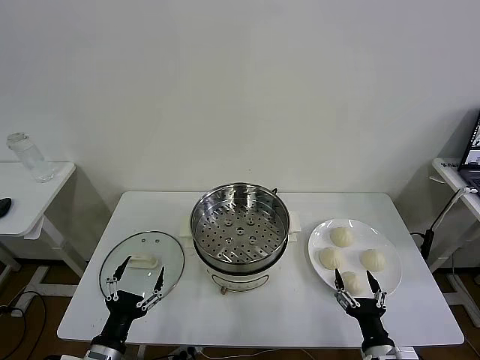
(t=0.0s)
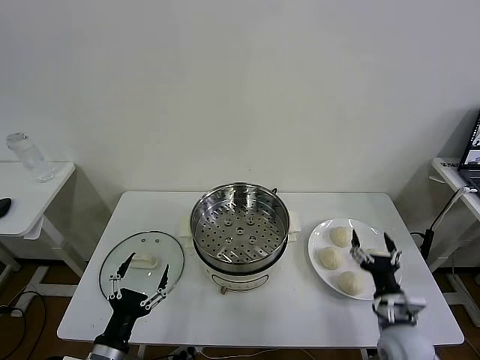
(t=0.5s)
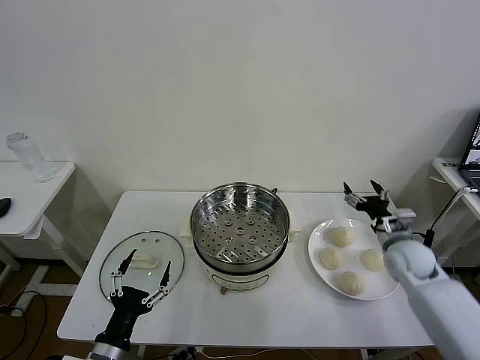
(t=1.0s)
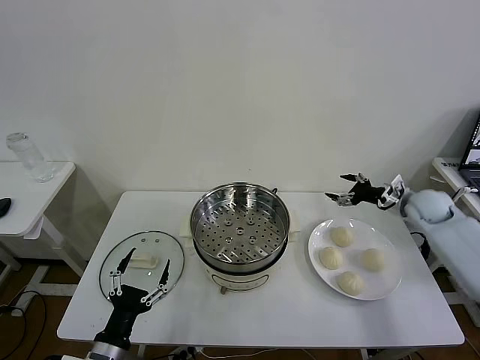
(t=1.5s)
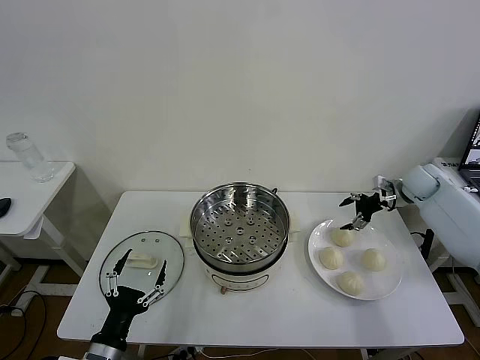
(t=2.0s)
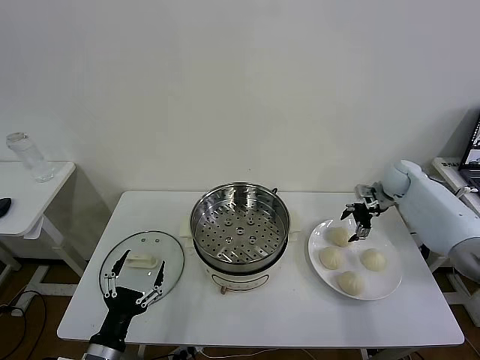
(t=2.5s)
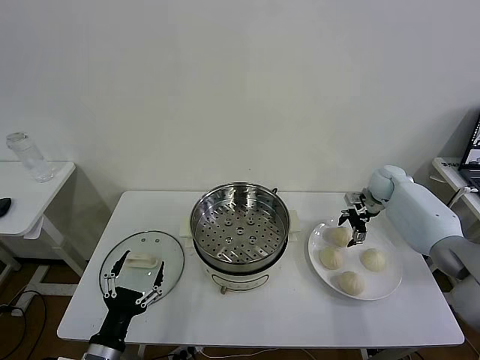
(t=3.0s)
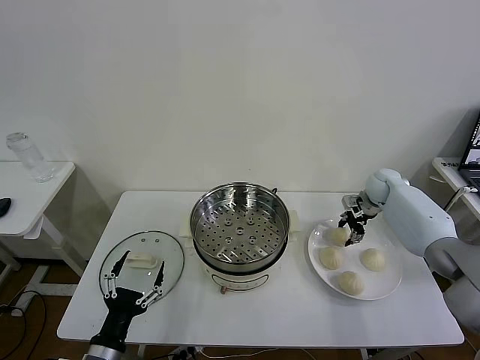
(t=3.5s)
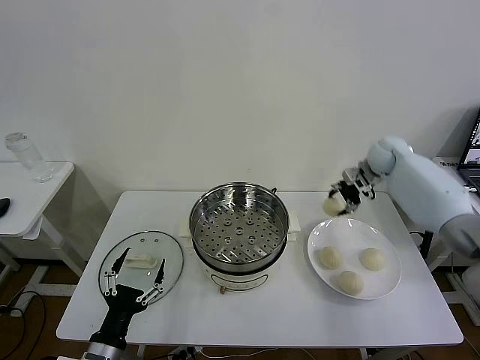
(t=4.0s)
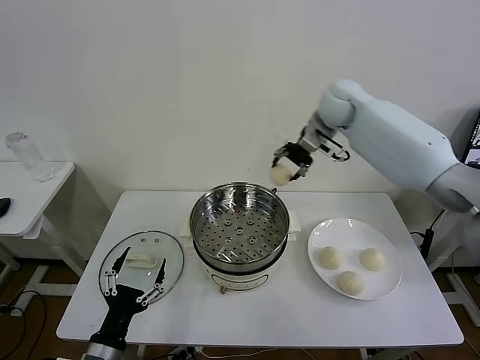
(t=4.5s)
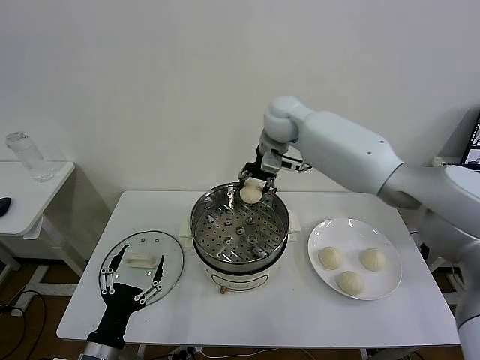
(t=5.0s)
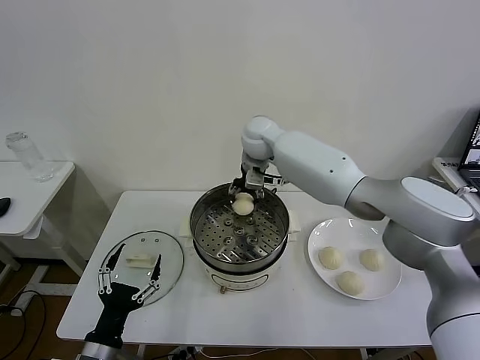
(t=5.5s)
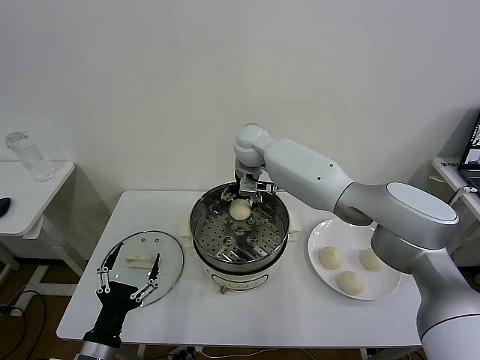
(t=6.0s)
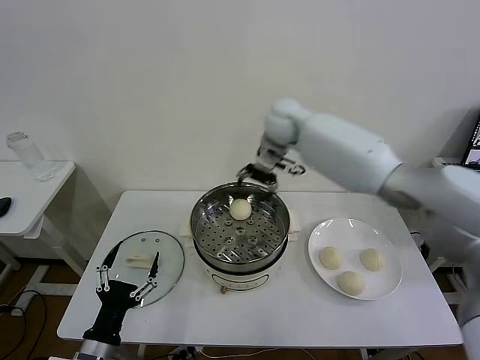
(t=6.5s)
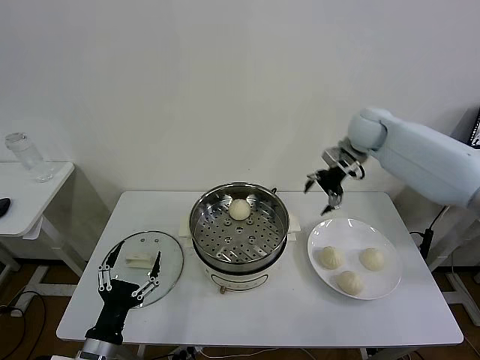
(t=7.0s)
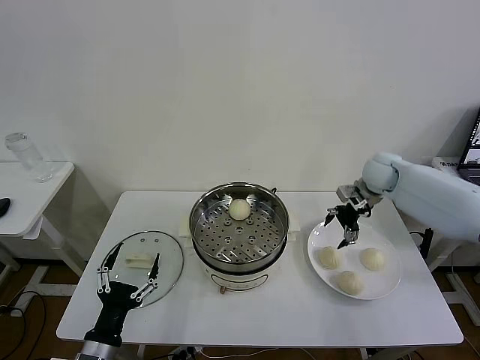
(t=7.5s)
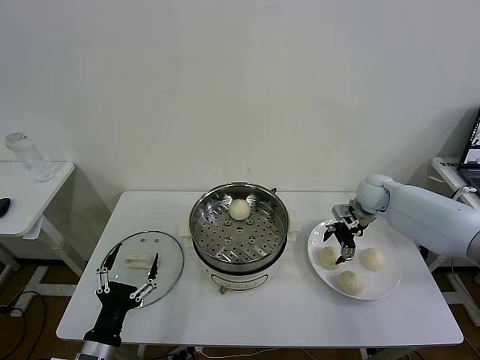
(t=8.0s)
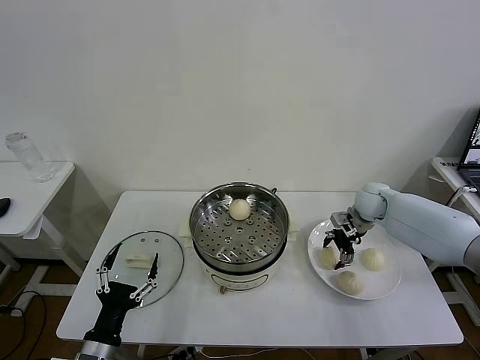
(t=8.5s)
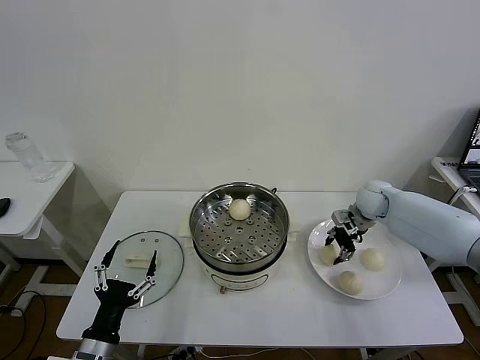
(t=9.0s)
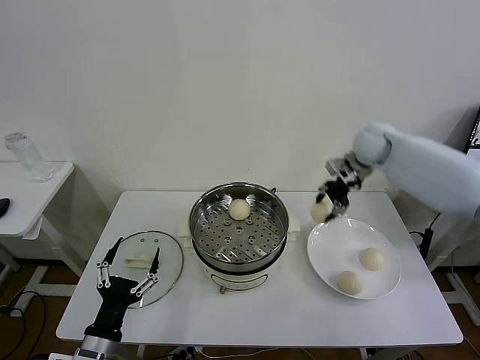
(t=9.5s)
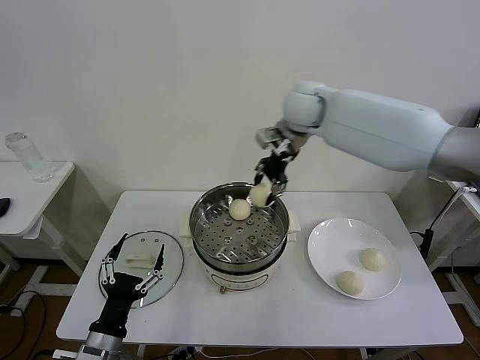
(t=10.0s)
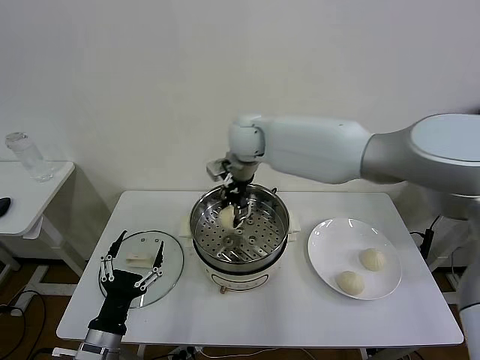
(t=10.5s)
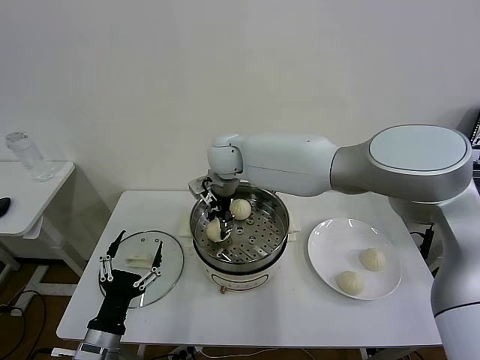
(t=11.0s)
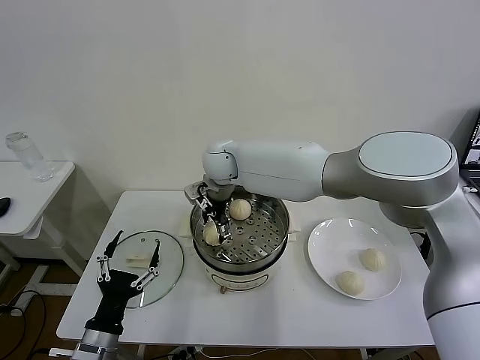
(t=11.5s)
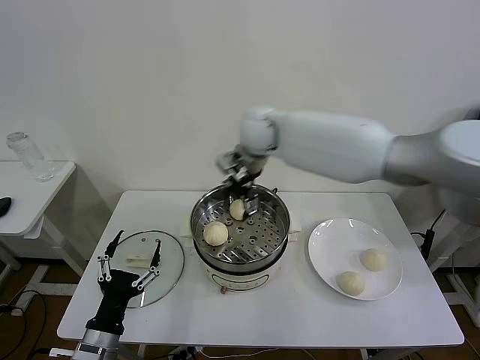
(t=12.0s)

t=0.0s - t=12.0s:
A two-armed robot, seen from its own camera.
Task of the whole recording: take steamed baozi put them in steamer then cover it.
Step, t=0.0s - t=3.5s: Grasp the baozi in the plate with right gripper.
Step, t=4.0s - t=6.0s: Place the baozi on the steamer with right gripper.
Step, t=6.5s - t=8.5s: Grasp the baozi in the plate with right gripper.
Step, t=9.0s - t=11.5s: Place the baozi on the steamer with right gripper.
t=2.0s - t=4.0s: The right gripper goes approximately 15 cm to the left, upward and forward, and closes up.
t=4.0s - t=6.0s: The right gripper travels to the left by about 35 cm, and opens its fingers.
t=6.0s - t=8.0s: The right gripper travels to the right by approximately 30 cm.
t=8.0s - t=10.0s: The right gripper moves to the left and upward, some 35 cm, and closes its fingers.
t=10.0s - t=12.0s: The right gripper moves roughly 15 cm to the left and comes back, and opens.

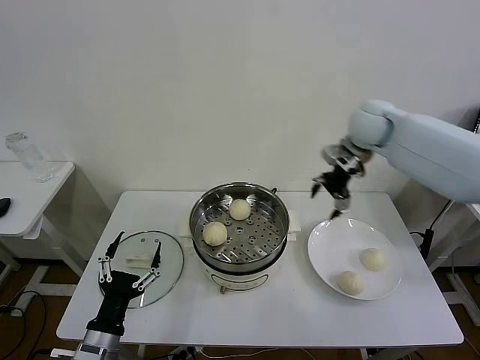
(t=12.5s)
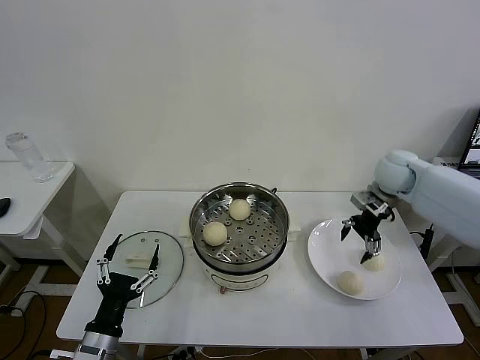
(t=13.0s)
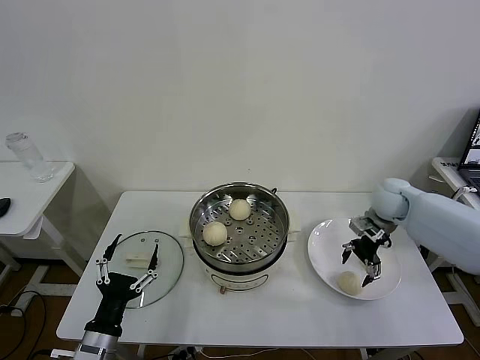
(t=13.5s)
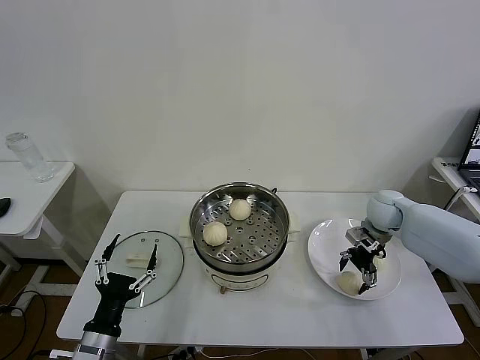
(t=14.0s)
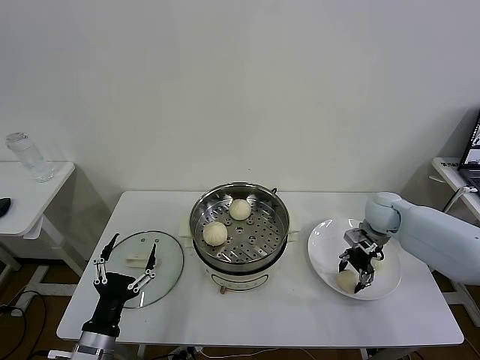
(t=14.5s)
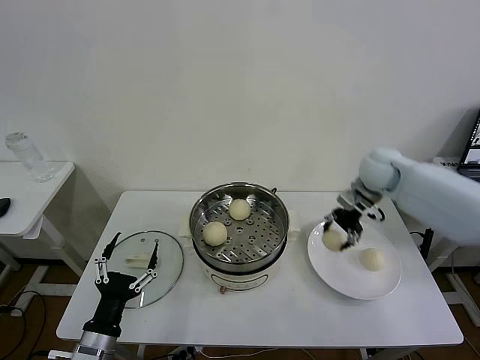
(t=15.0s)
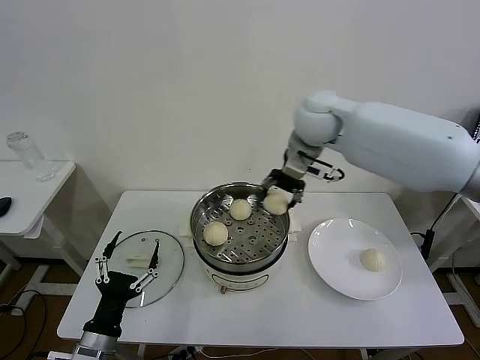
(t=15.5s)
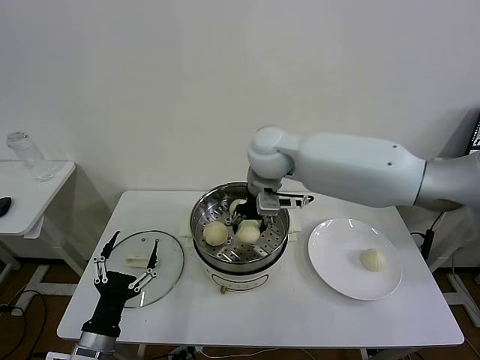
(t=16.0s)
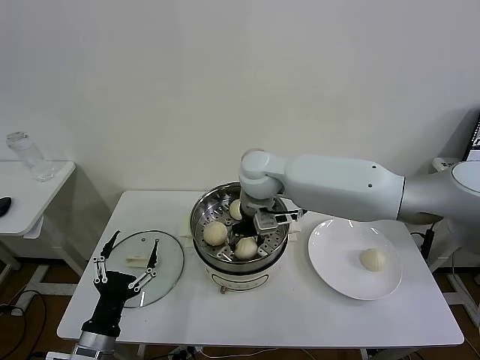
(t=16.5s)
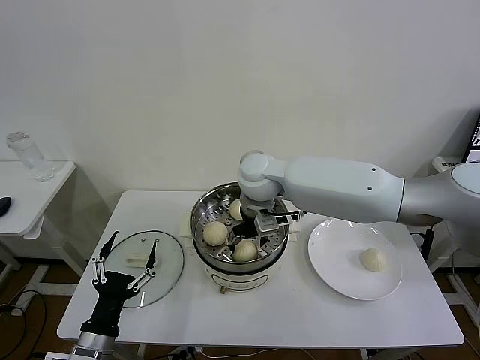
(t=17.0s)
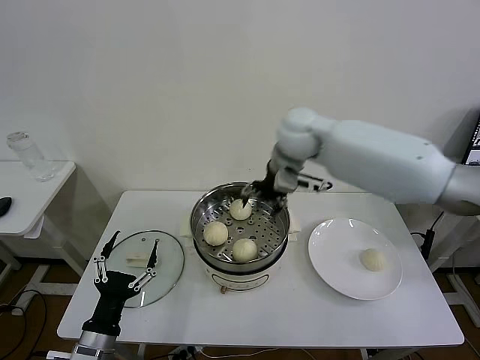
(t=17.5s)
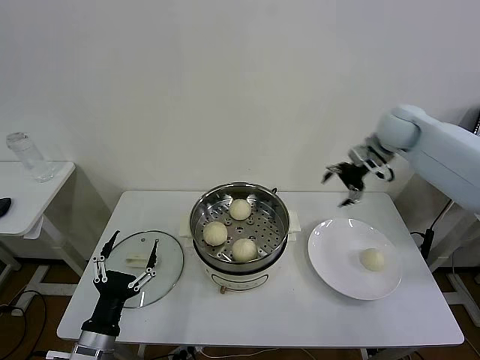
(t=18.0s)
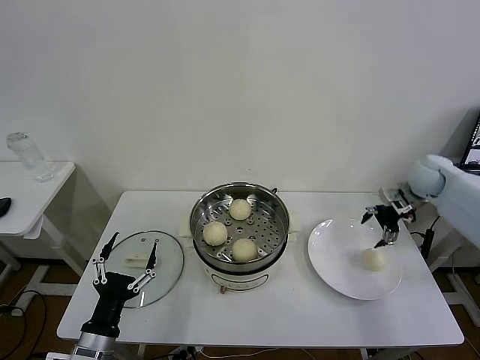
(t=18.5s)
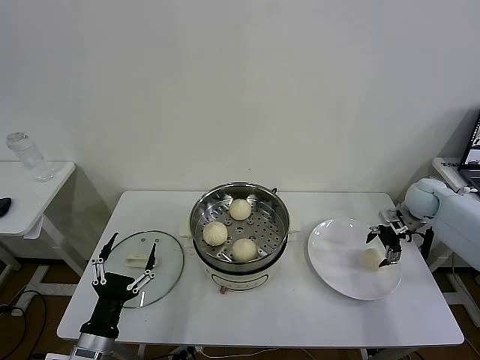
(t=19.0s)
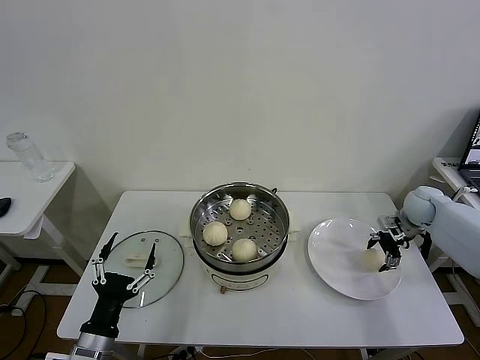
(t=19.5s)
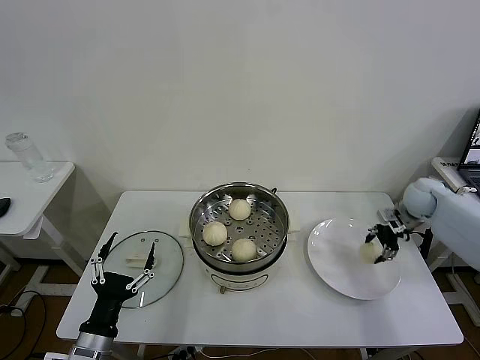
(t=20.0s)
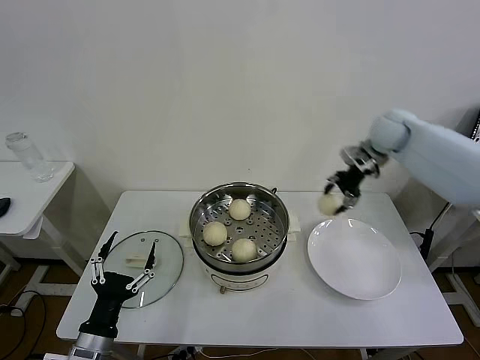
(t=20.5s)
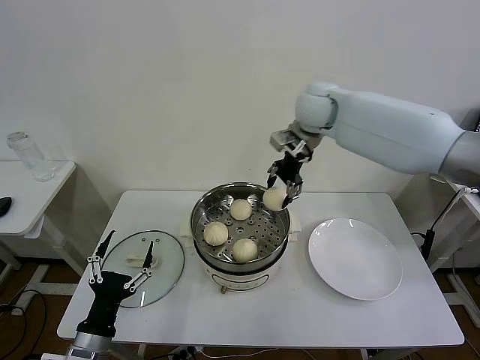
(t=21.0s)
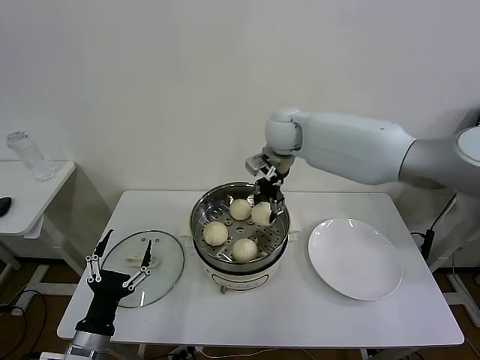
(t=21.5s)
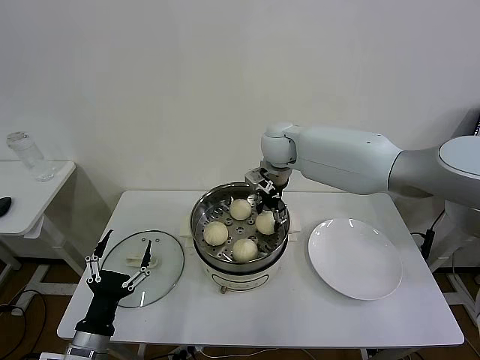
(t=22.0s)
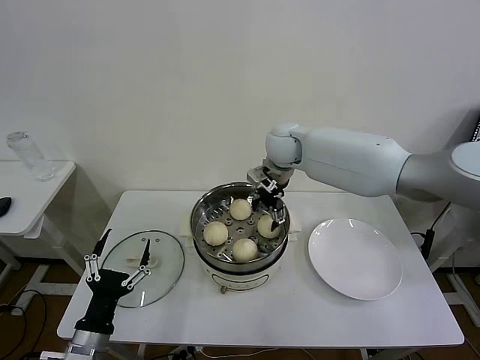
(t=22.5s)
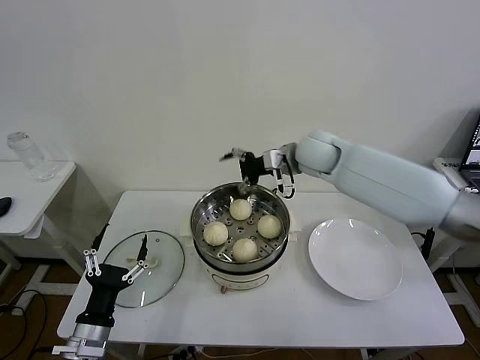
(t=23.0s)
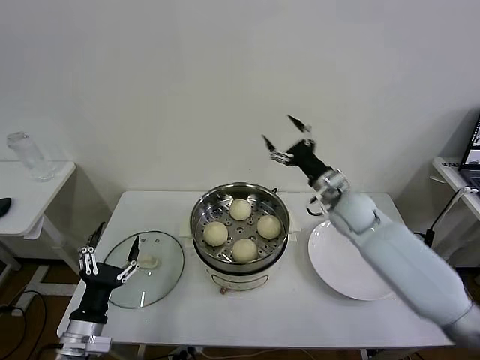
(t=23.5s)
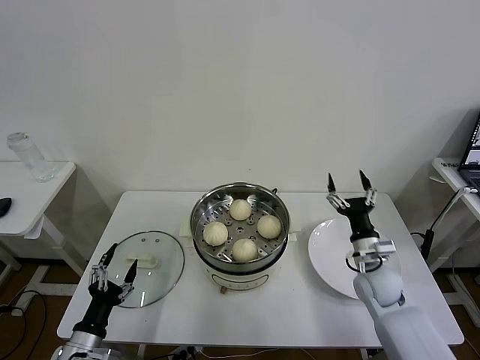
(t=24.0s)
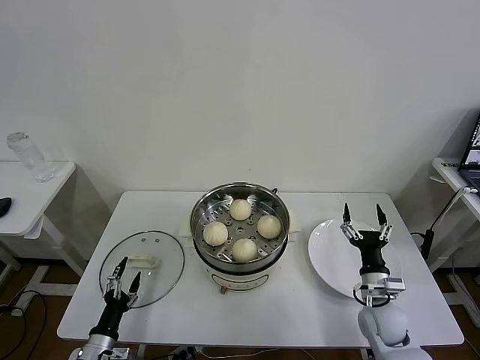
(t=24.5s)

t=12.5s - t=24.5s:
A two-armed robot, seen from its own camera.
Task of the whole recording: take steamed baozi put them in steamer then cover it.
Step, t=12.5s - t=14.5s: Grasp the baozi in the plate with right gripper.
Step, t=15.0s - t=17.0s: Place the baozi on the steamer with right gripper.
Step, t=17.5s - t=19.5s: Grasp the baozi in the plate with right gripper.
Step, t=20.0s - t=22.0s: Place the baozi on the steamer with right gripper.
t=12.5s - t=14.5s: The right gripper travels downward by about 20 cm, and closes up.
t=14.5s - t=16.5s: The right gripper goes roughly 35 cm to the left and upward.
t=16.5s - t=18.5s: The right gripper heads to the right, covering about 40 cm, and opens its fingers.
t=18.5s - t=20.5s: The right gripper travels to the left and upward by some 15 cm, and closes its fingers.
t=20.5s - t=22.5s: The right gripper heads to the left, covering approximately 25 cm, and opens its fingers.
t=22.5s - t=24.5s: The right gripper shifts some 50 cm downward, backward and to the right. The left gripper travels downward and to the left by about 15 cm.

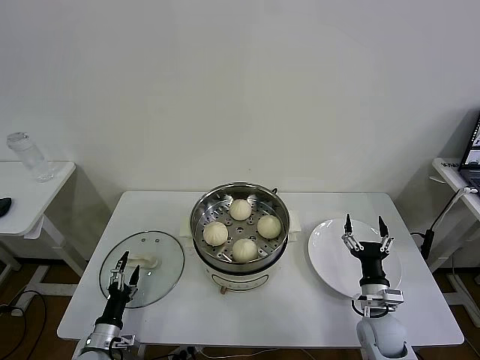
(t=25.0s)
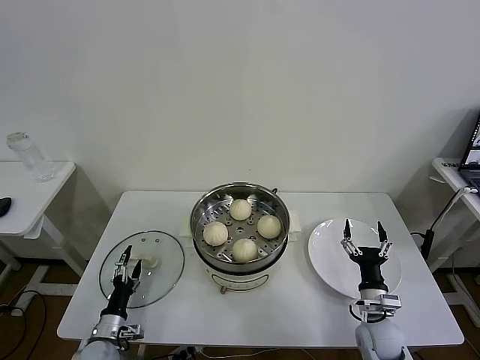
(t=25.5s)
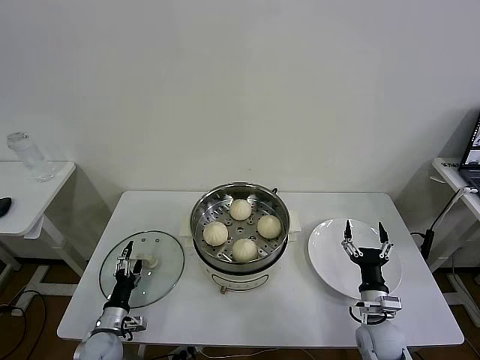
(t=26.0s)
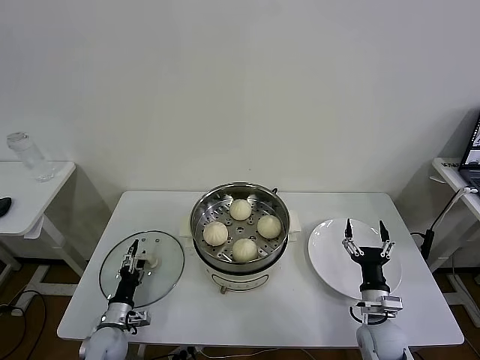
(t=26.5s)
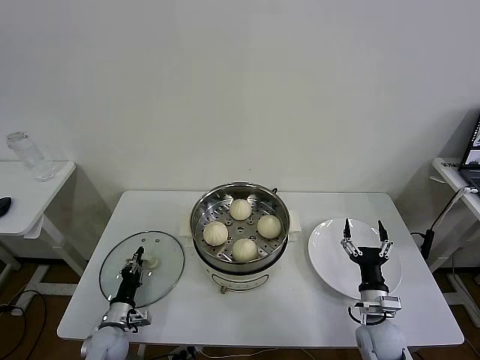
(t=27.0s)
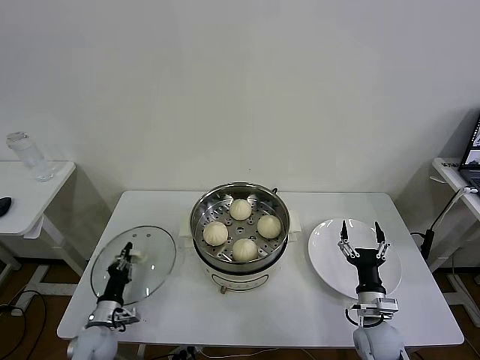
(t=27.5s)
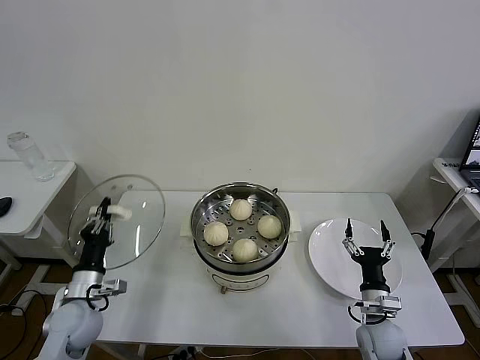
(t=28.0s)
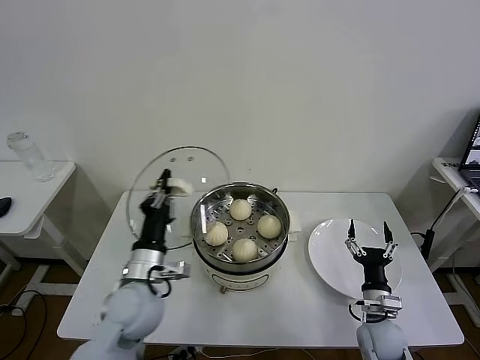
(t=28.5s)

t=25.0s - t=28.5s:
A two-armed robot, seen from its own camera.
Task of the whole recording: take steamed baozi put them in steamer then cover it.
Step, t=25.0s - t=27.0s: Grasp the pot lid with left gripper.
t=25.0s - t=27.0s: The left gripper moves forward, roughly 5 cm, and closes up.
t=27.0s - t=28.5s: The left gripper is displaced upward and to the right by about 30 cm.
